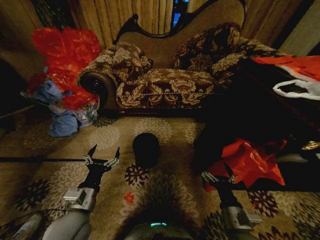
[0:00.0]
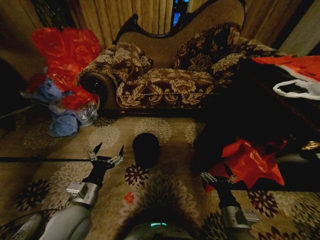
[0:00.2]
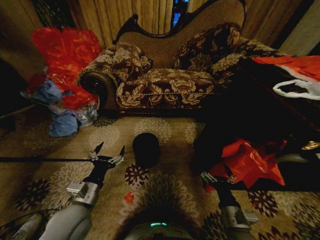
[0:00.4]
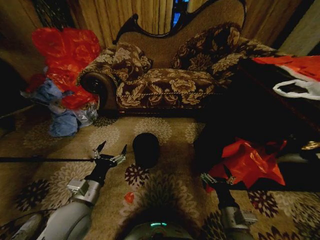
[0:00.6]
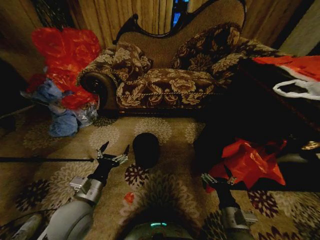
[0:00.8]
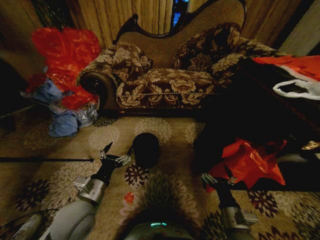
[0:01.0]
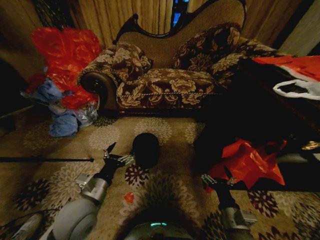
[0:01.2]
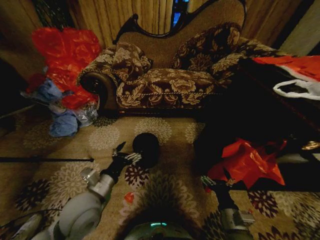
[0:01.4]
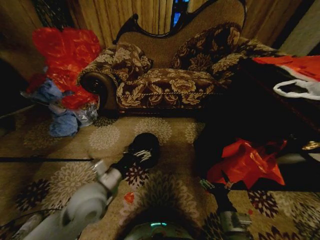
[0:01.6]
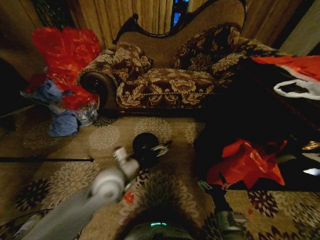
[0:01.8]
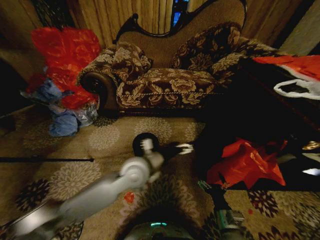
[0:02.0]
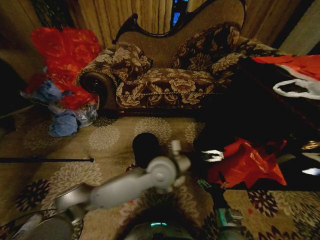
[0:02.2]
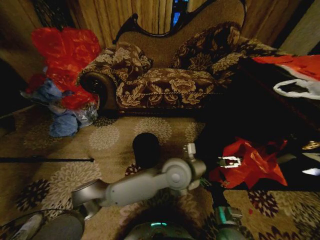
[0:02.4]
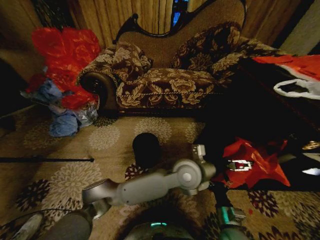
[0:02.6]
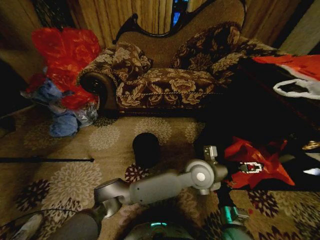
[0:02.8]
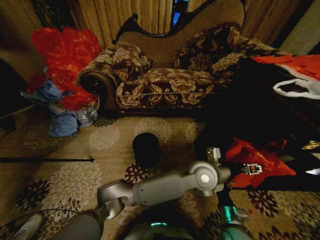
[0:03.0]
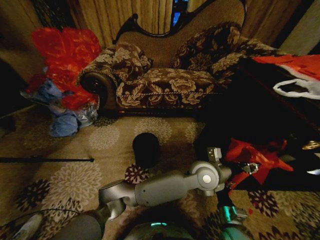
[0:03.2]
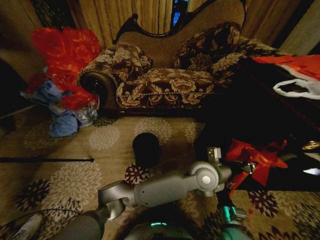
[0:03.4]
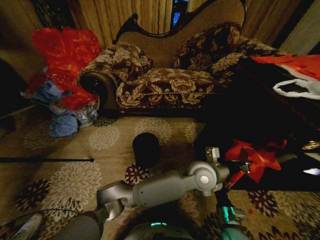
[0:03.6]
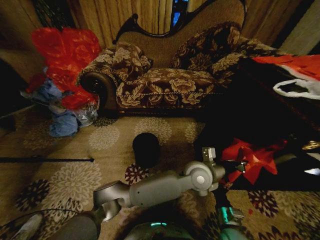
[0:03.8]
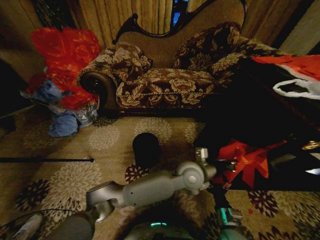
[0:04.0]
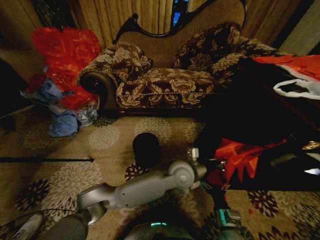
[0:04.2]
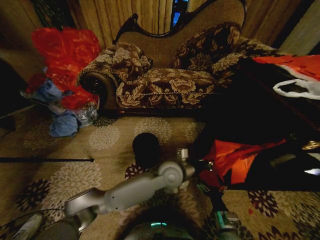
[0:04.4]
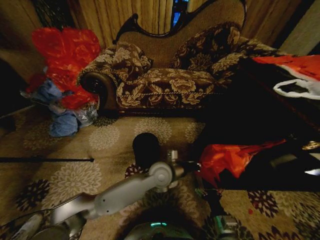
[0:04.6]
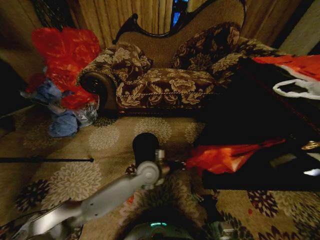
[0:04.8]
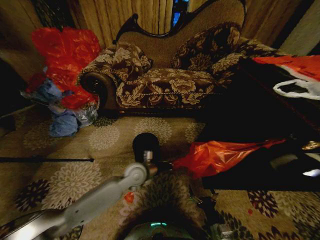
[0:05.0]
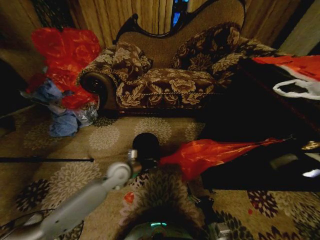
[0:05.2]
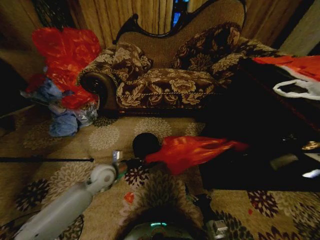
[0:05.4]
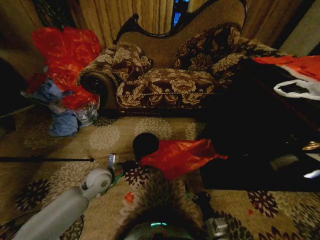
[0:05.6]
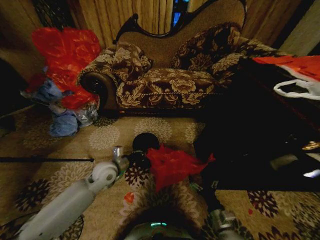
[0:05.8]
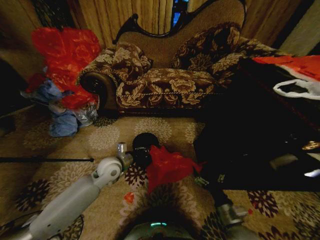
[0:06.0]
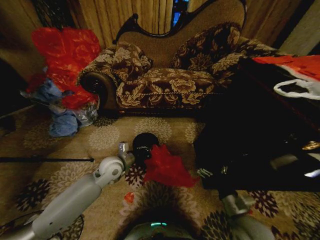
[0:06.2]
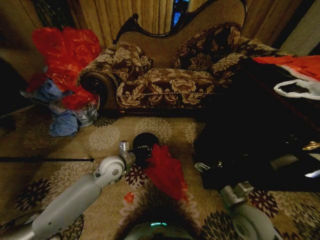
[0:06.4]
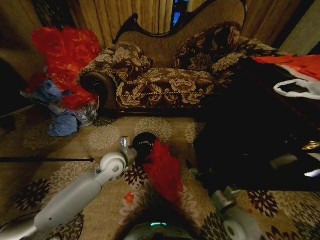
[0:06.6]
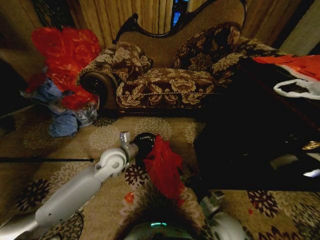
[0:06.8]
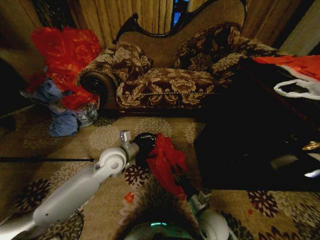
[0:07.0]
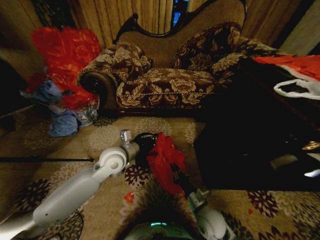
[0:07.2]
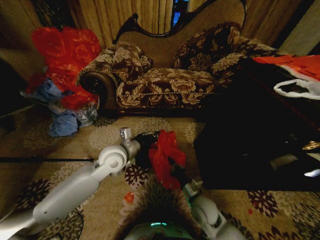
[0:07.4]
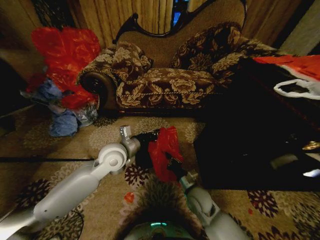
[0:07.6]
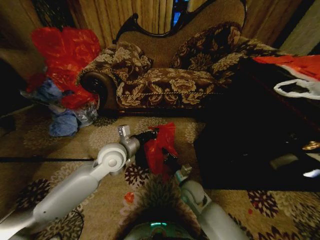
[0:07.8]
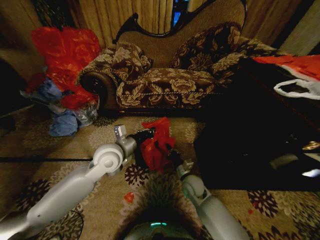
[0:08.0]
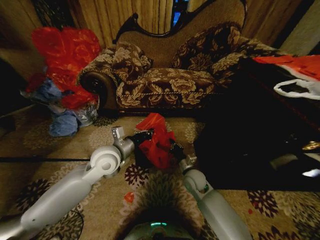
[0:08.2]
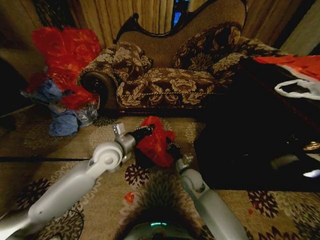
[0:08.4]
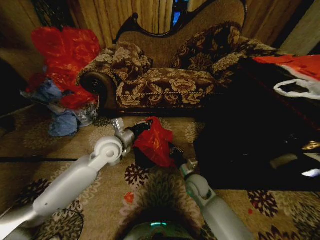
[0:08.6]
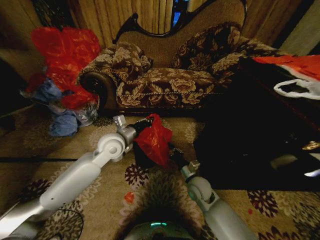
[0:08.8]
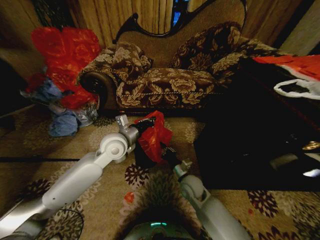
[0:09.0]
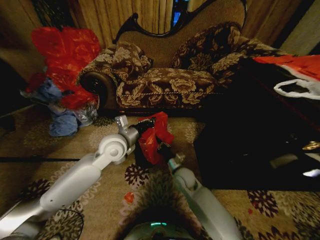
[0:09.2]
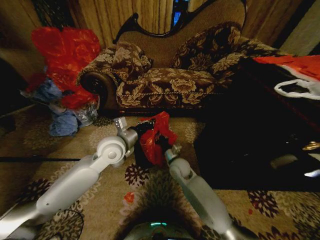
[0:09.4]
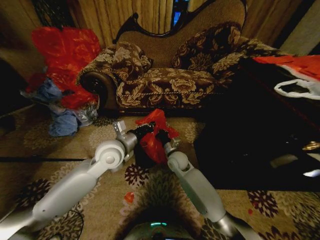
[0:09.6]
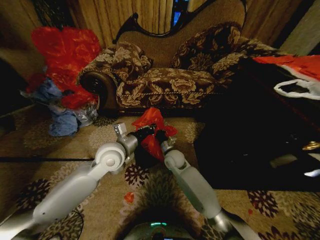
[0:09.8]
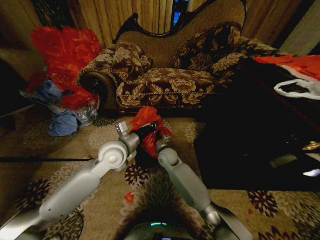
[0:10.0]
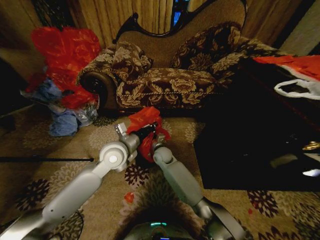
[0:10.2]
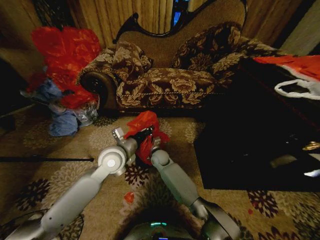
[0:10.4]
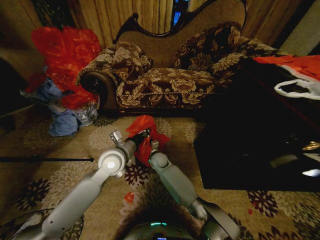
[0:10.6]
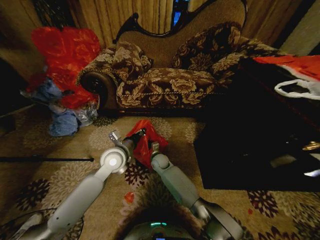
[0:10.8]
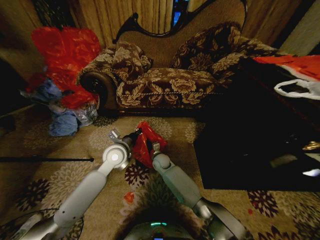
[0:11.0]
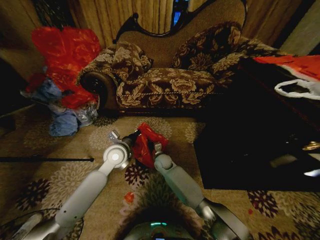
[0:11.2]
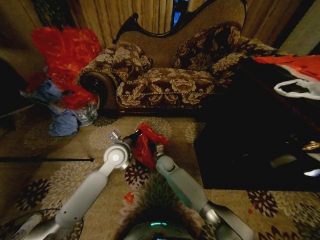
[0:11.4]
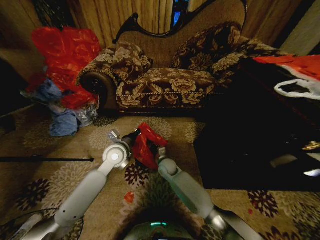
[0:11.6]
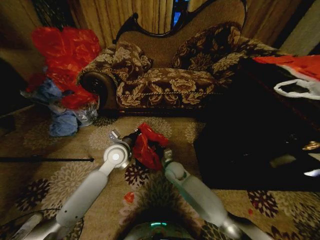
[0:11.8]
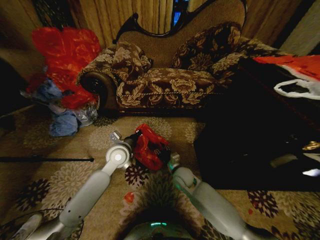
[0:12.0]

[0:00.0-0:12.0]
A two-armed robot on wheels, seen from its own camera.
Task of the whole recording: Place a garbage bag over the trash bin.
0:01.6 to 0:03.0: The left gripper heads to the right, covering some 35 cm, and closes its fingers.
0:03.0 to 0:04.4: The left gripper heads to the left, covering roughly 10 cm, and closes up.
0:04.4 to 0:06.0: The right gripper shifts roughly 5 cm upward; the left gripper travels to the left by approximately 25 cm.
0:06.0 to 0:07.6: The left gripper moves upward, about 10 cm; the right gripper goes roughly 15 cm forward and to the left, and closes its fingers.
0:09.0 to 0:10.4: The right gripper goes some 20 cm forward and to the left.
0:10.4 to 0:12.0: The right gripper travels to the right and backward by roughly 15 cm, and opens up, while the left gripper moves roughly 5 cm.

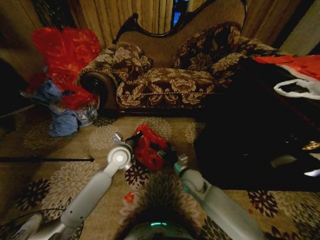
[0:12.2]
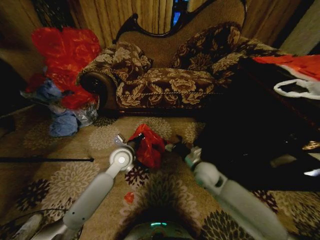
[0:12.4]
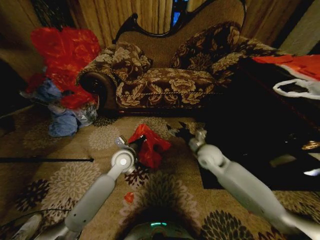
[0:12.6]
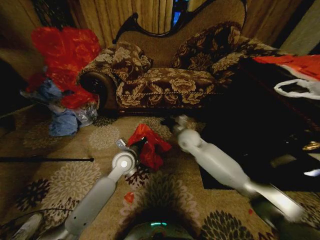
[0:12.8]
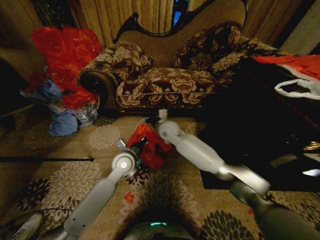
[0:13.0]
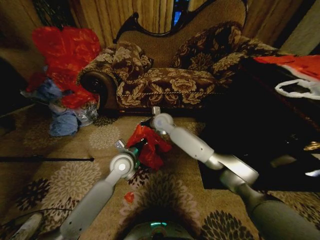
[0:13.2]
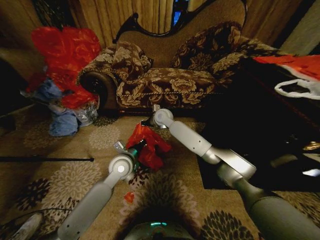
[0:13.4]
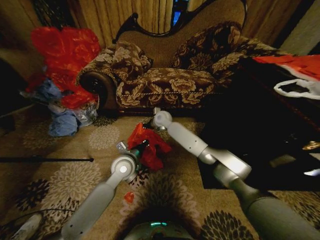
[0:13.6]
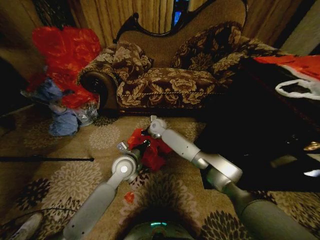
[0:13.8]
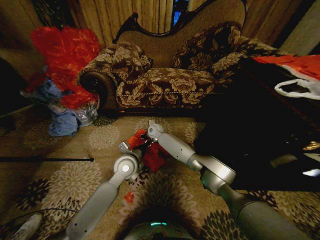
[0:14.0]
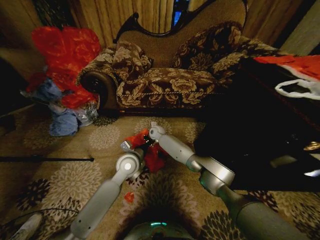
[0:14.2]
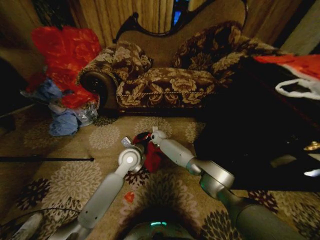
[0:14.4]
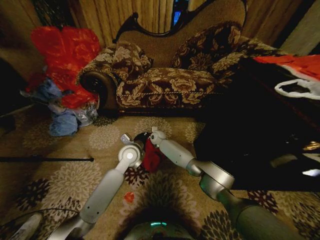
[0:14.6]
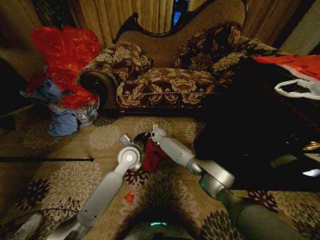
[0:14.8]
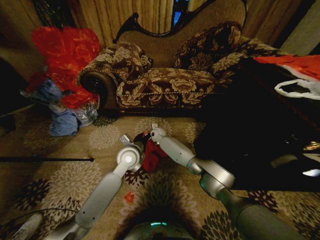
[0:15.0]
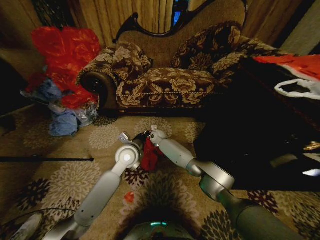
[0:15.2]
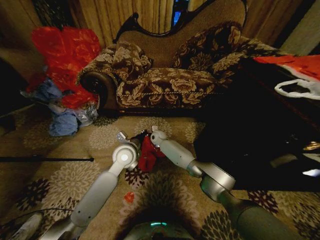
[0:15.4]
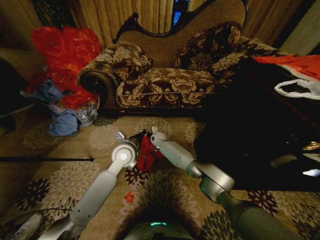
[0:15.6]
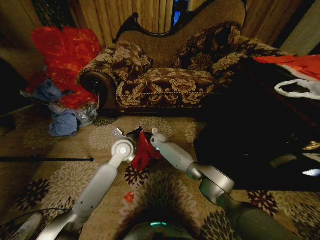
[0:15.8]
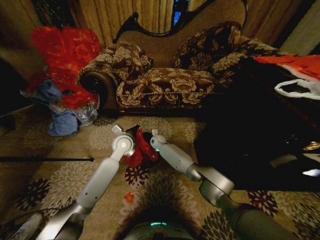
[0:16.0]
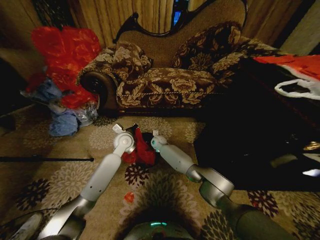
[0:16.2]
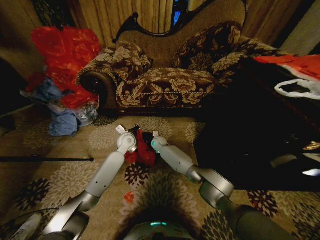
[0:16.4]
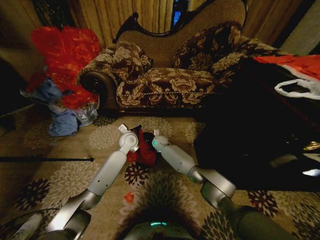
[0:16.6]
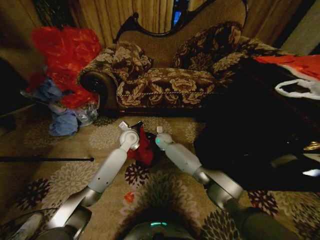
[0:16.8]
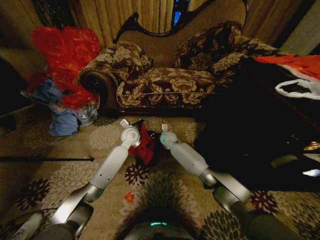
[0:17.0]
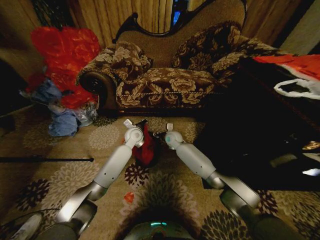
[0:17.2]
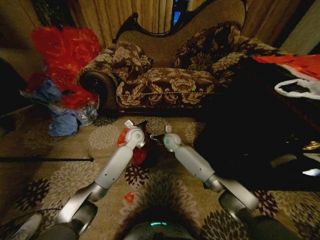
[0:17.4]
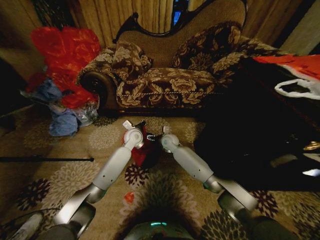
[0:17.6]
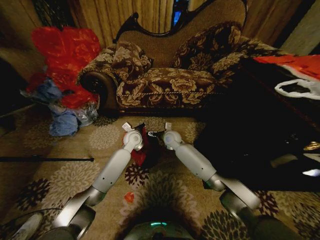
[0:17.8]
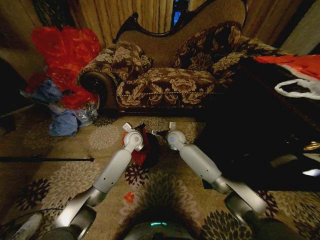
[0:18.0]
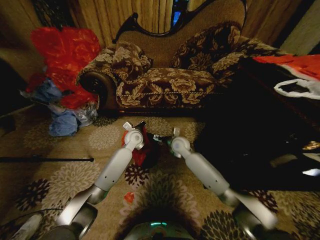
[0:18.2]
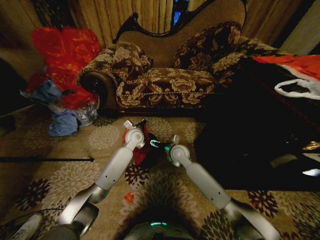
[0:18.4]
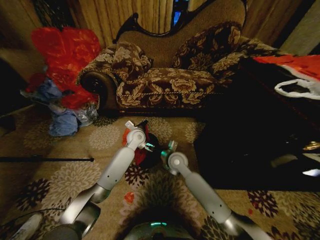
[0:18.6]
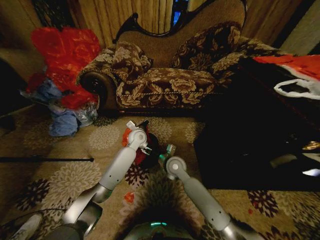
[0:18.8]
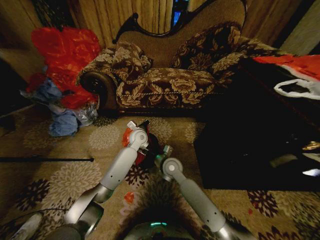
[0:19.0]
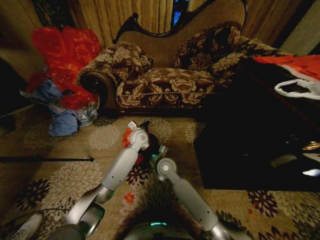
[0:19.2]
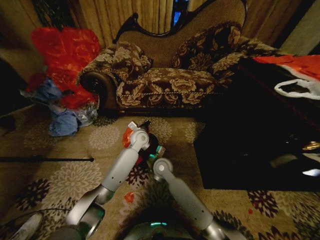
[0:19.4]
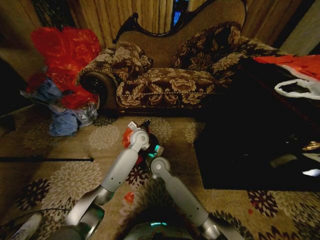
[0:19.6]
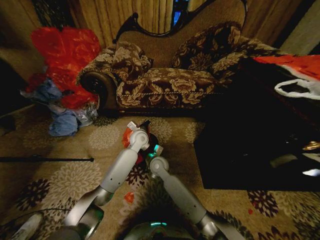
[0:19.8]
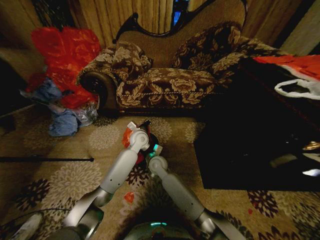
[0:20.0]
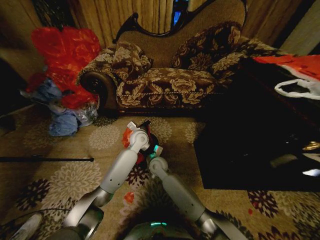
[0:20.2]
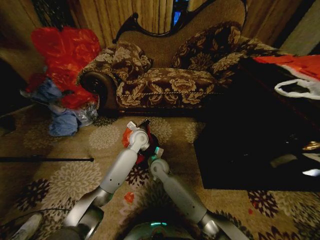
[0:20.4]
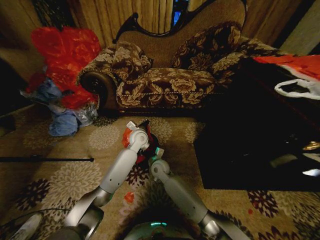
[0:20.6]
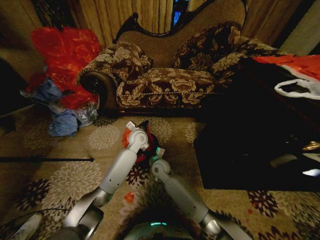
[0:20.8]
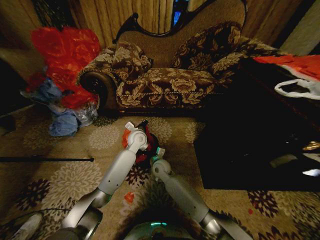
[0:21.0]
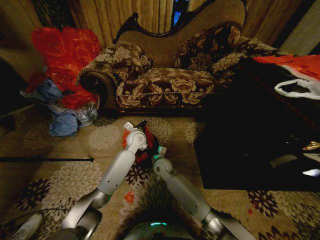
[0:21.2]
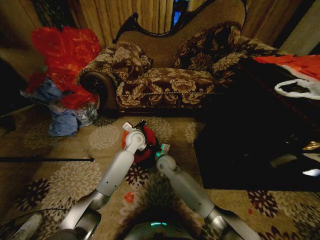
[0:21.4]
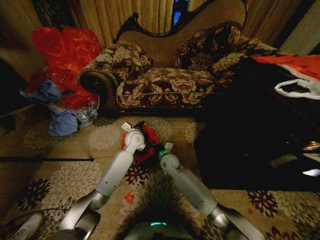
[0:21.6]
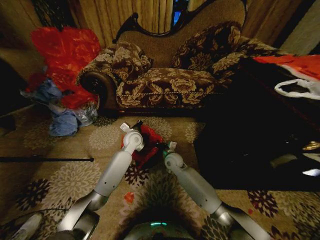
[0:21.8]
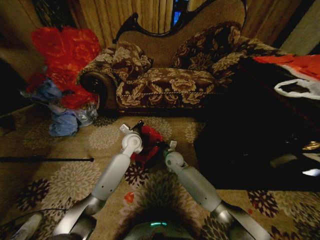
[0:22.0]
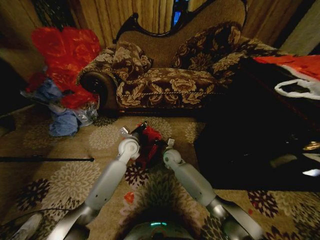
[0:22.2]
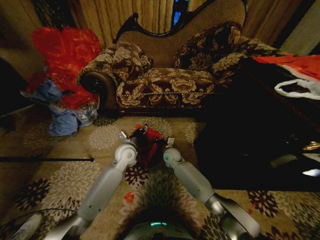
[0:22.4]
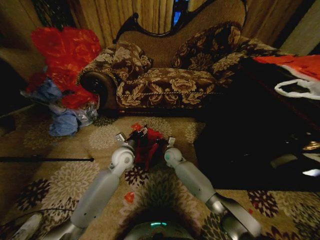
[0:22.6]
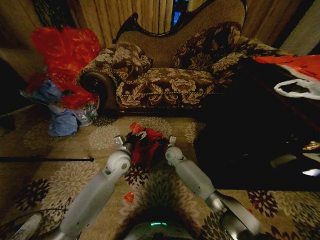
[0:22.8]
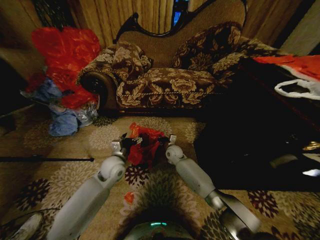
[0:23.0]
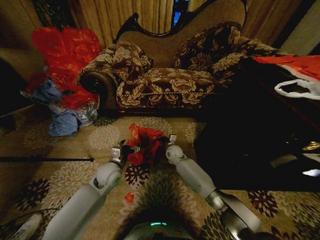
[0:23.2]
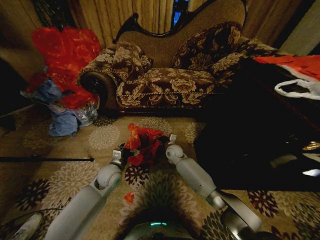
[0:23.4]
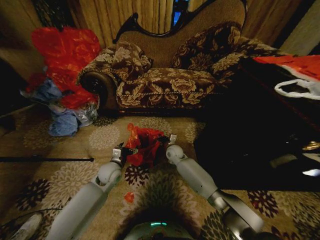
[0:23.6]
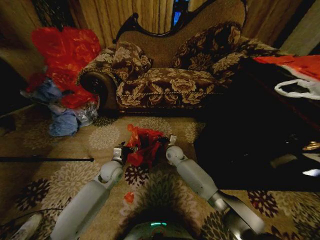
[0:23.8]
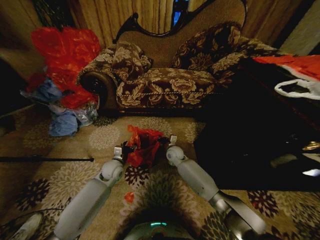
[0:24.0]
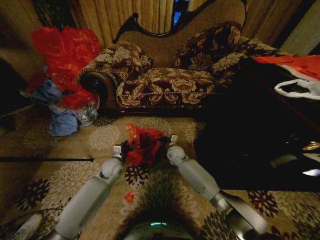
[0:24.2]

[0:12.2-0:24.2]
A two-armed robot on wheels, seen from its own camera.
Task of the whole recording: Place a garbage bag over the trash bin.
0:12.2 to 0:13.8: The right gripper heads forward, to the left and upward, covering about 30 cm, and closes up.
0:13.8 to 0:15.2: The right gripper is displaced downward by about 5 cm.
0:15.2 to 0:16.6: The left gripper moves forward, approximately 10 cm.
0:16.6 to 0:18.2: The right gripper goes some 15 cm to the right, backward and upward, and opens its fingers.
0:18.2 to 0:19.8: The right gripper shifts approximately 15 cm to the left, backward and downward.
0:19.8 to 0:21.2: The right gripper closes its fingers.
0:21.2 to 0:22.6: The left gripper shifts about 10 cm backward, and opens. The right gripper travels forward and to the right by roughly 10 cm.
0:22.6 to 0:24.2: The left gripper moves downward and to the left, approximately 10 cm, and closes its fingers.
